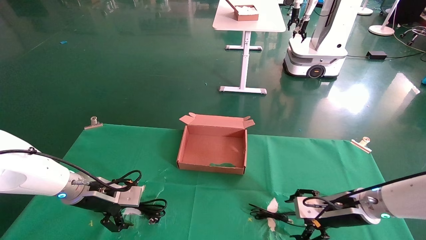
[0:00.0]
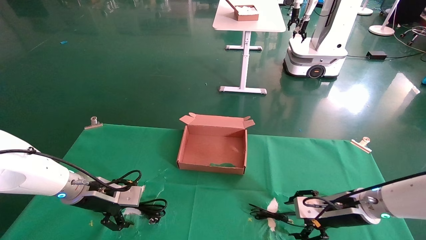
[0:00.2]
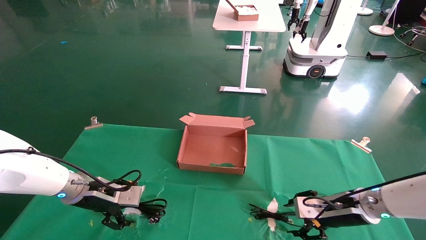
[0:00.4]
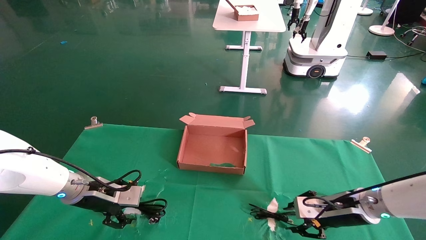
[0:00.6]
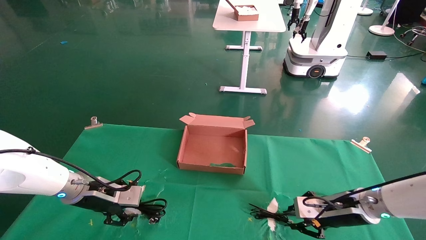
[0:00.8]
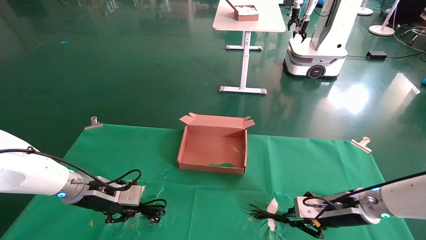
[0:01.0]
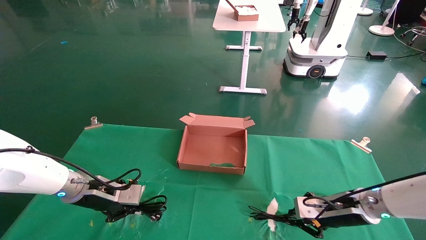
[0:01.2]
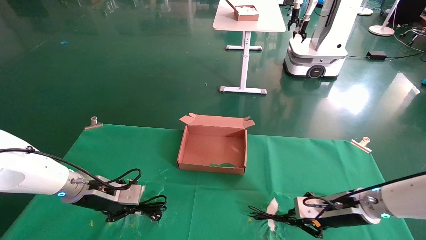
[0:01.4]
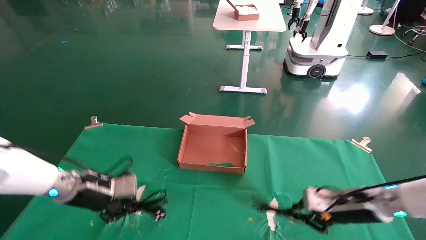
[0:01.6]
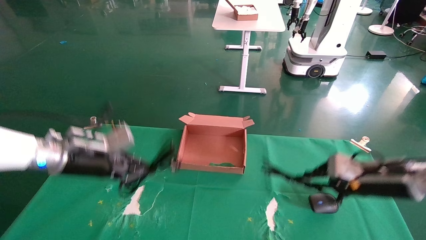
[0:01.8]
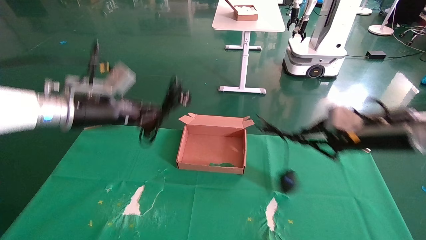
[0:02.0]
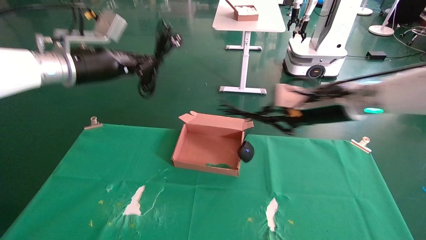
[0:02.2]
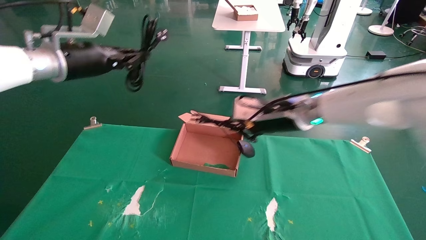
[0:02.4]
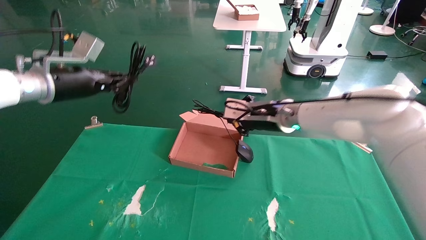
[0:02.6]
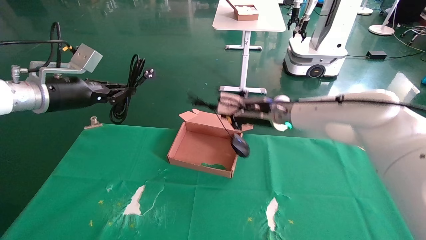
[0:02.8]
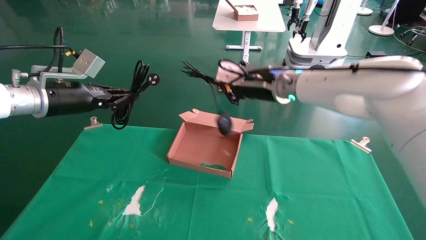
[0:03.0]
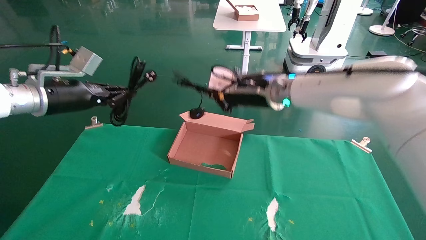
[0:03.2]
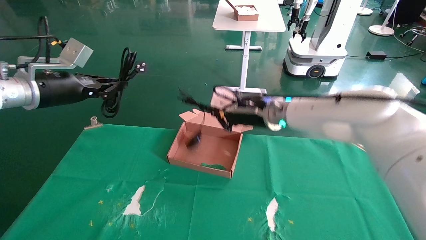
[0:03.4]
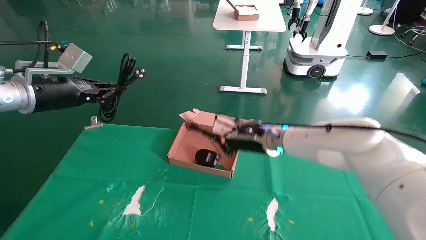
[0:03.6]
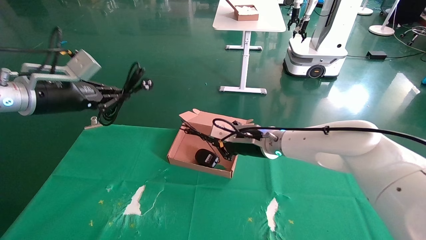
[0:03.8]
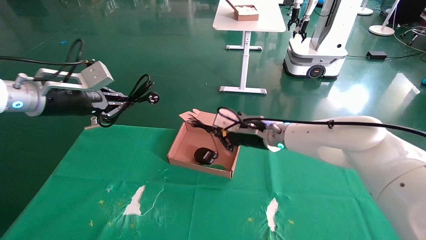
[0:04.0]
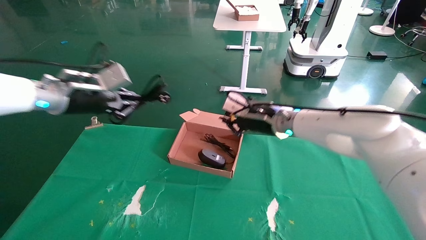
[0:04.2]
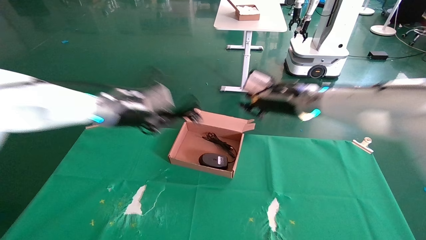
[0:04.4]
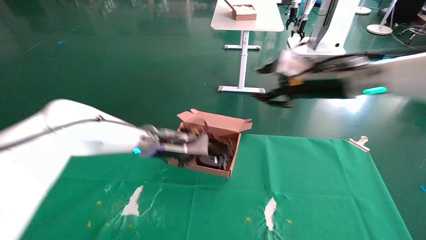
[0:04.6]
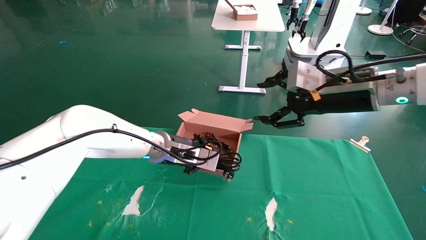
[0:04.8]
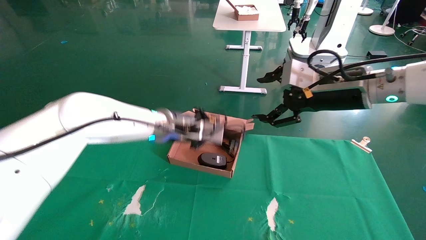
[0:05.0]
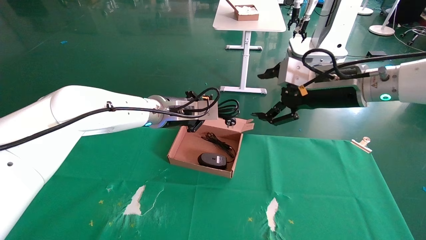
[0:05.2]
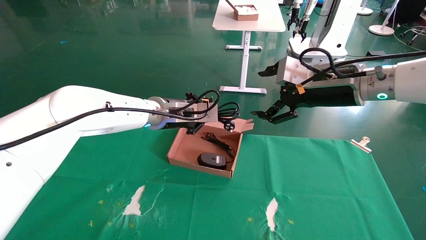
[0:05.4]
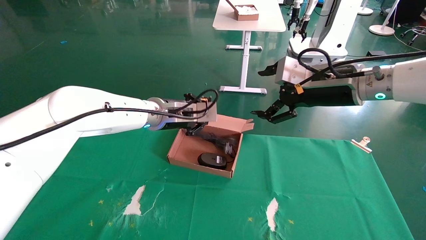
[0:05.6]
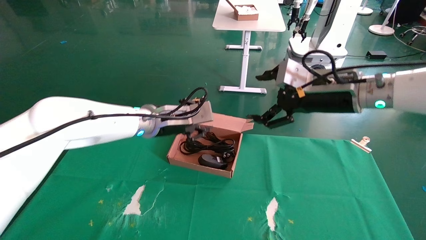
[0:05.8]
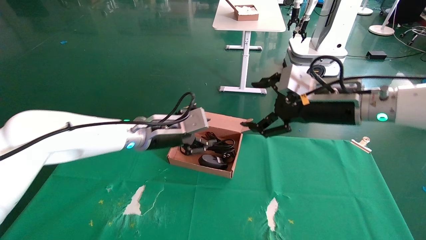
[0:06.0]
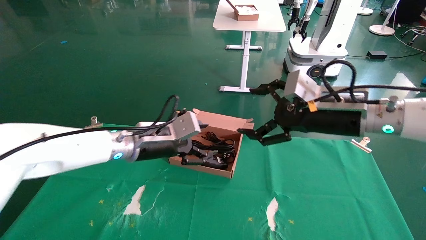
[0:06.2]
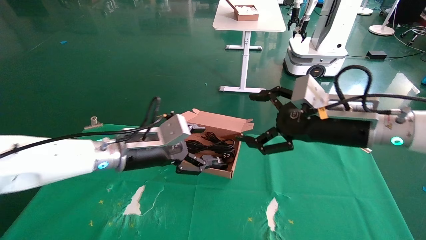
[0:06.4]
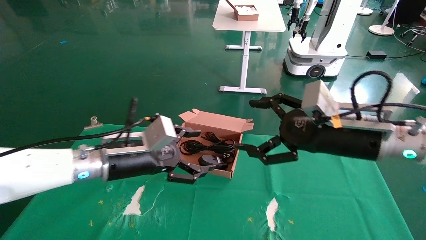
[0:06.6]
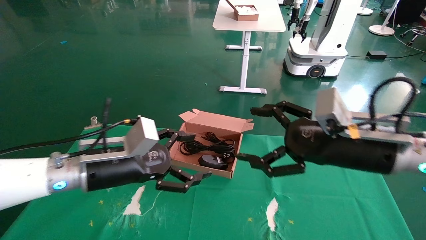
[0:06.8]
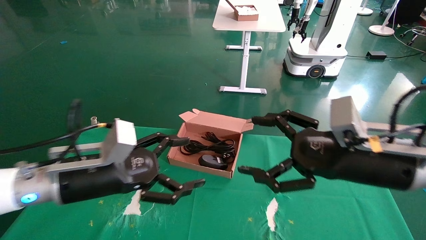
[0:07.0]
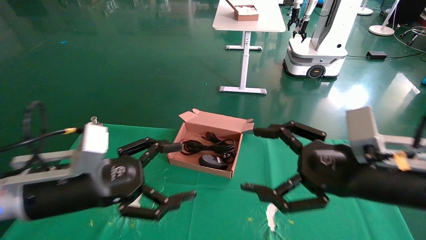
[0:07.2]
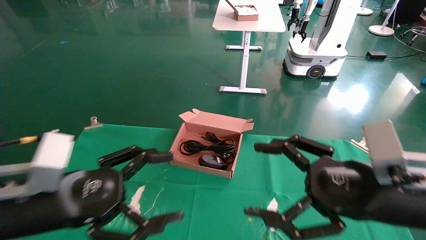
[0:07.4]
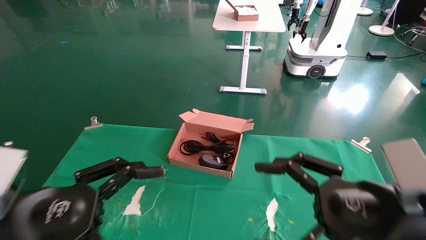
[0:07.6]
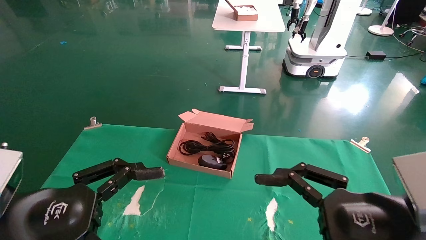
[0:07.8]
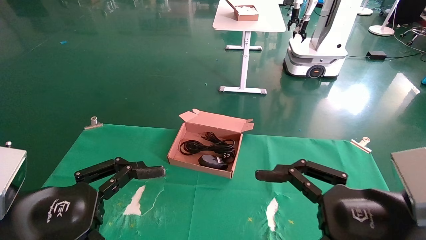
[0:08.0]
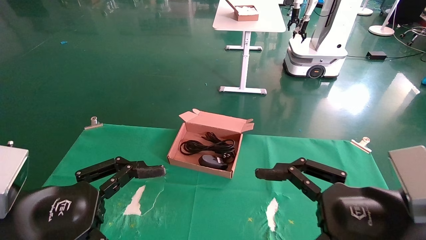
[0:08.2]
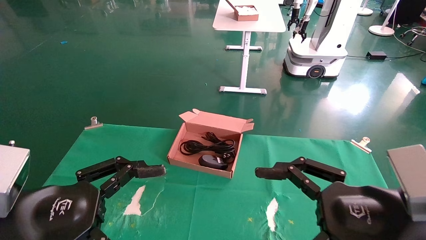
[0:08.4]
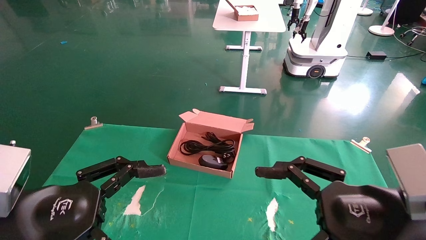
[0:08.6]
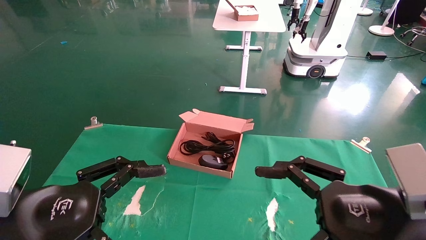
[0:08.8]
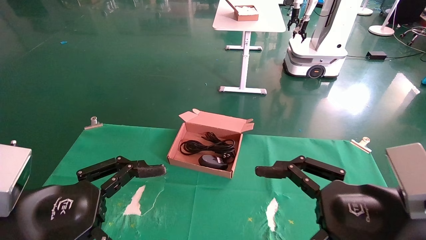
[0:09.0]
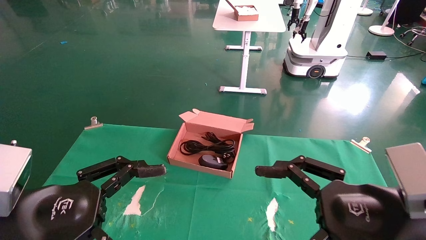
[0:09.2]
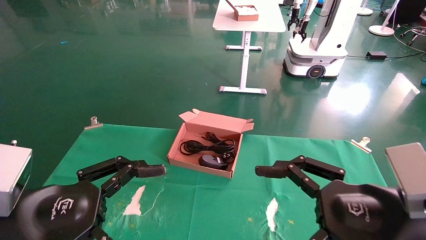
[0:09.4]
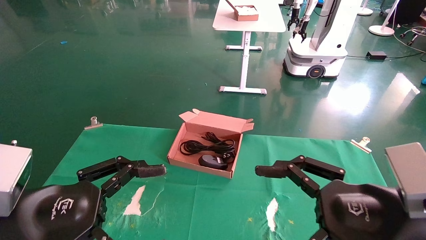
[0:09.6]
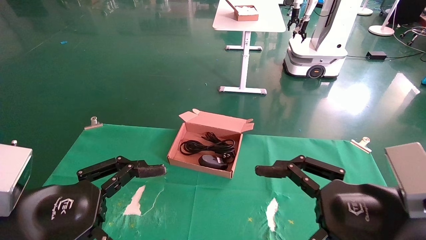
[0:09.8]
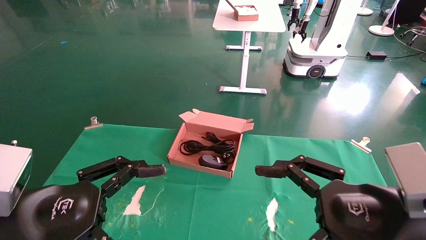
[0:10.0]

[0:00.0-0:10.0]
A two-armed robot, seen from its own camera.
Step, 0:01.2 to 0:05.8: Place the mouse and power cord into the box.
0:00.0 to 0:01.4: The left gripper closes its fingers. Meanwhile the right gripper closes.
0:01.4 to 0:02.8: The right gripper shifts roughly 25 cm upward and to the left. The left gripper goes some 20 cm upward.
0:02.8 to 0:04.2: The left gripper ends up some 5 cm from where it was; the right gripper goes downward and returns, approximately 10 cm each way.
0:04.2 to 0:05.8: The left gripper moves to the right and downward, roughly 15 cm; the right gripper shifts approximately 15 cm backward, to the right and upward, and opens its fingers.
0:05.8 to 0:07.2: The right gripper goes approximately 15 cm backward and downward; the left gripper moves backward and to the left, approximately 20 cm, and opens its fingers.
0:07.2 to 0:08.6: Both grippers travel together backward, about 5 cm.
0:08.6 to 0:10.0: The two grippers keep their place.
